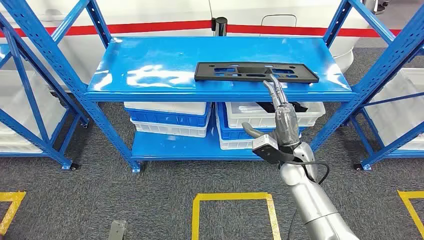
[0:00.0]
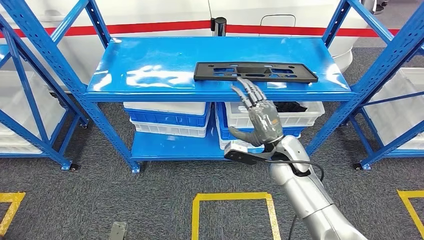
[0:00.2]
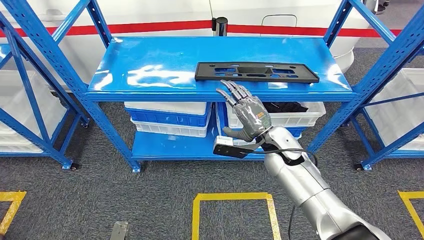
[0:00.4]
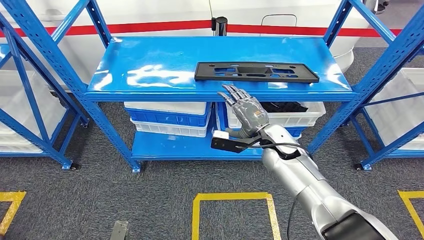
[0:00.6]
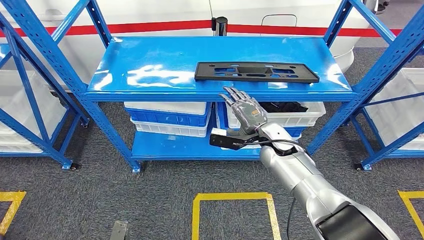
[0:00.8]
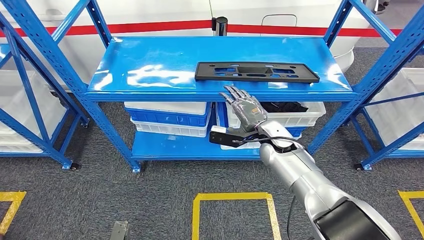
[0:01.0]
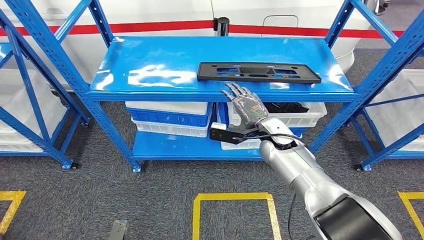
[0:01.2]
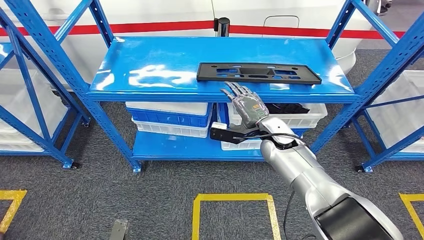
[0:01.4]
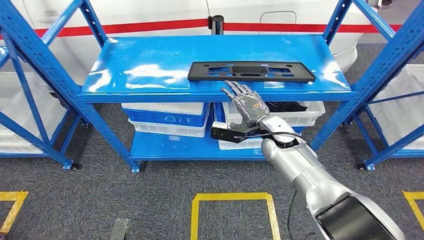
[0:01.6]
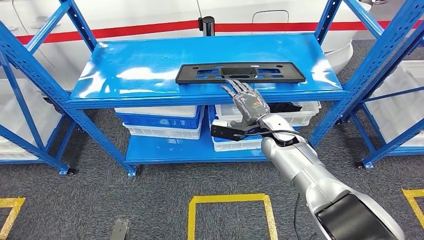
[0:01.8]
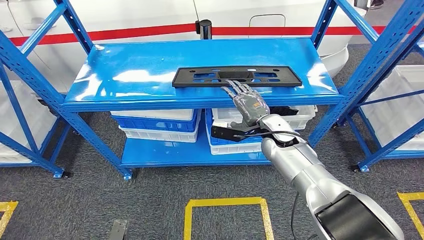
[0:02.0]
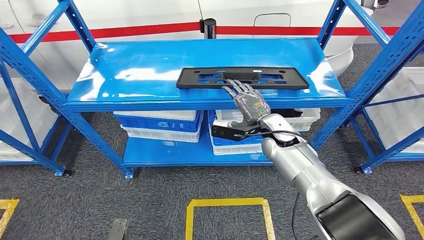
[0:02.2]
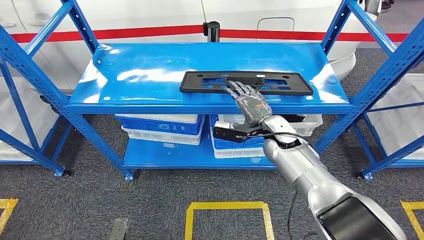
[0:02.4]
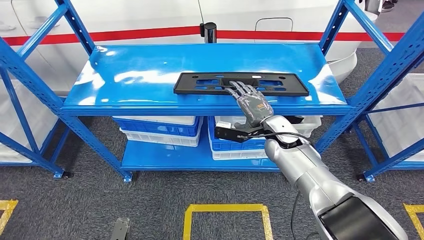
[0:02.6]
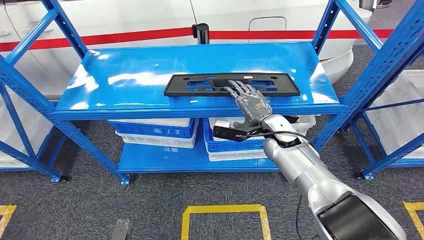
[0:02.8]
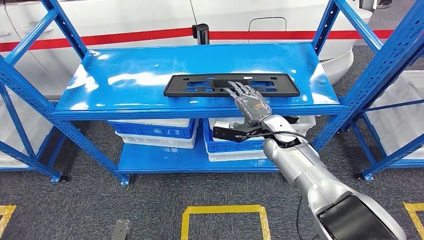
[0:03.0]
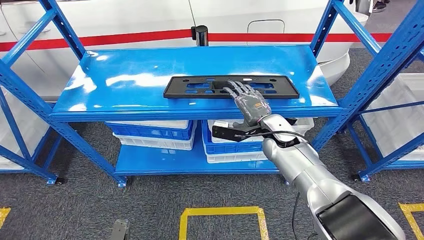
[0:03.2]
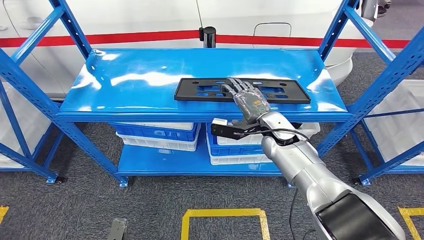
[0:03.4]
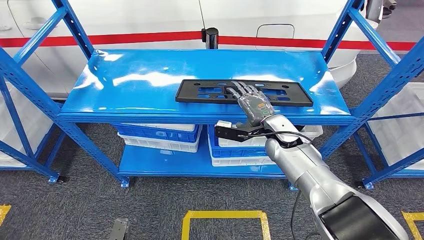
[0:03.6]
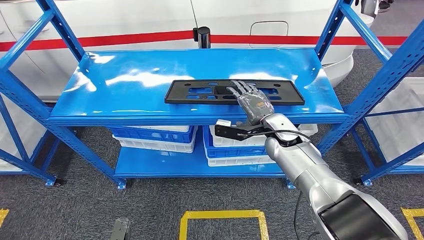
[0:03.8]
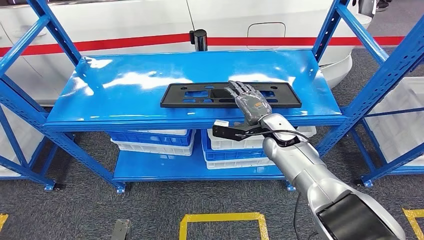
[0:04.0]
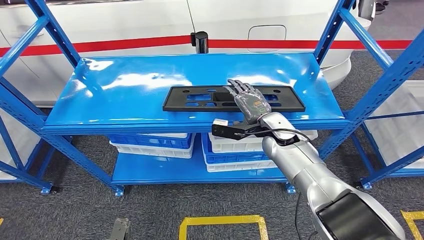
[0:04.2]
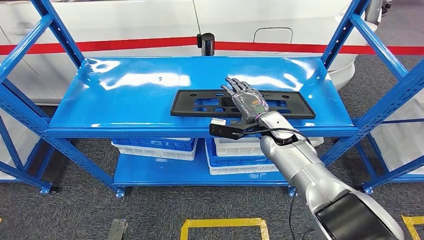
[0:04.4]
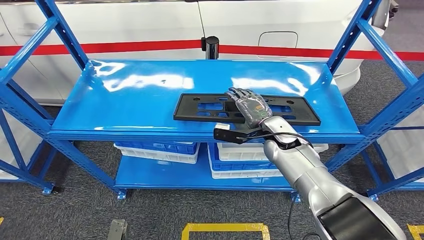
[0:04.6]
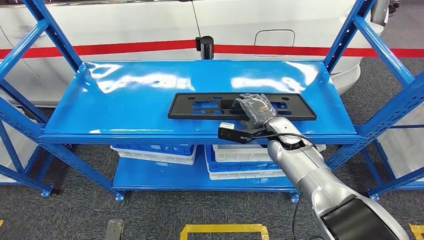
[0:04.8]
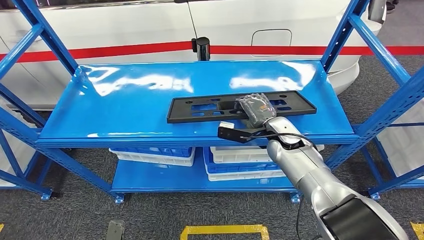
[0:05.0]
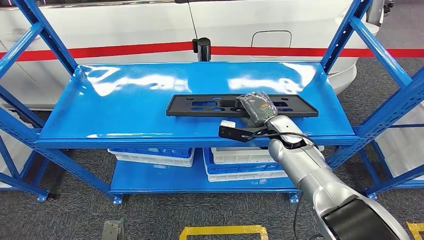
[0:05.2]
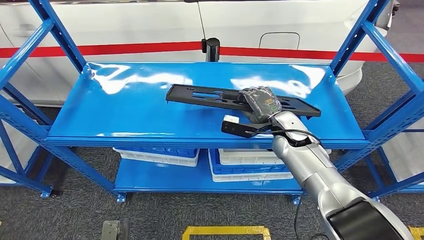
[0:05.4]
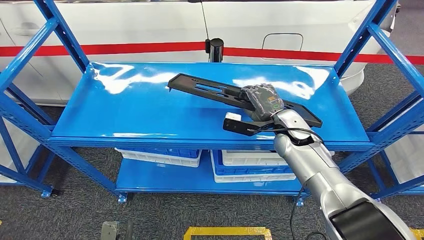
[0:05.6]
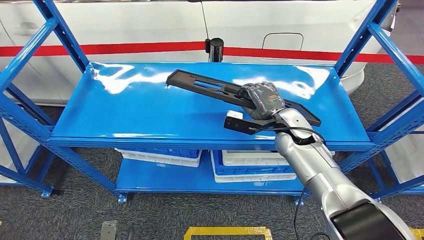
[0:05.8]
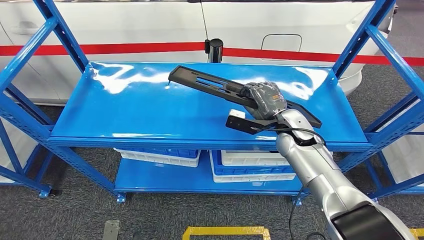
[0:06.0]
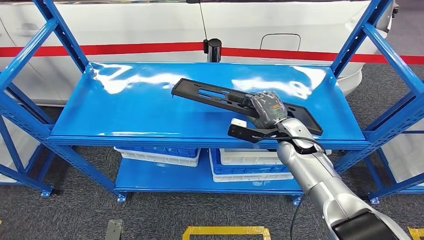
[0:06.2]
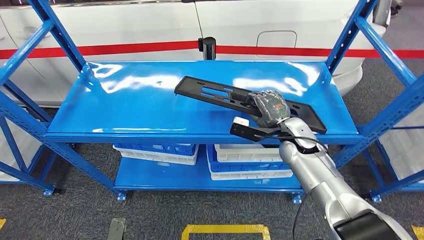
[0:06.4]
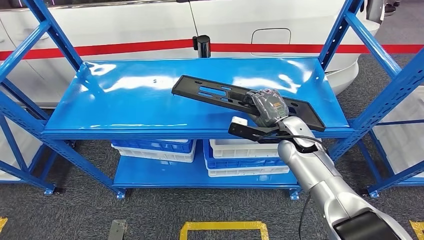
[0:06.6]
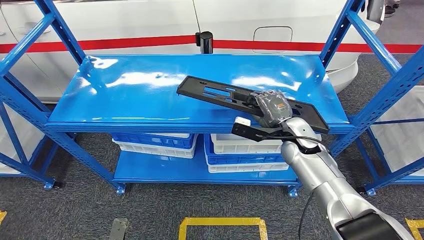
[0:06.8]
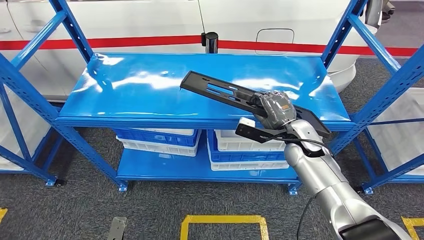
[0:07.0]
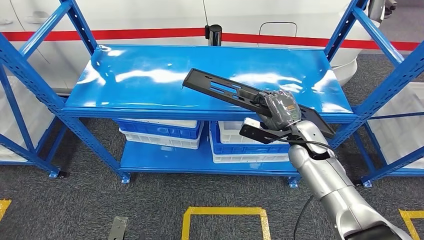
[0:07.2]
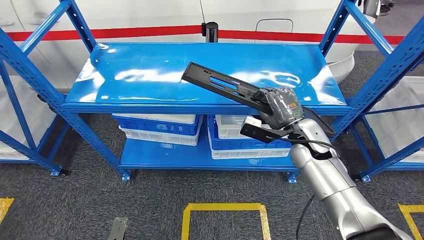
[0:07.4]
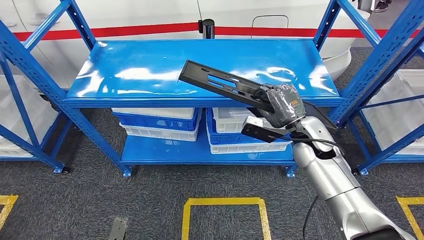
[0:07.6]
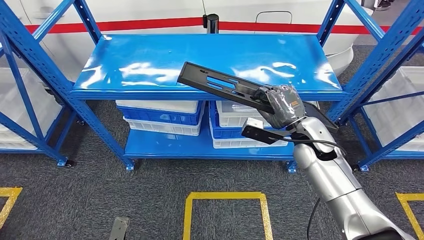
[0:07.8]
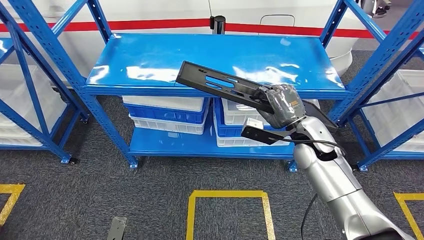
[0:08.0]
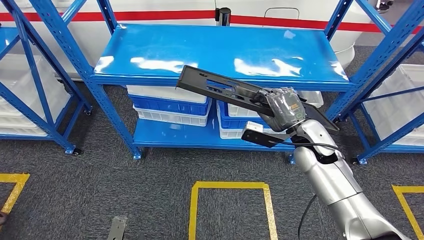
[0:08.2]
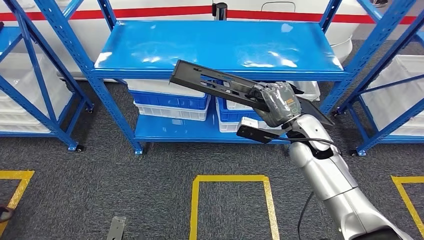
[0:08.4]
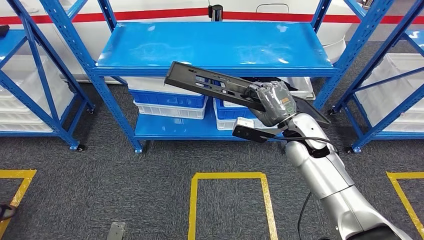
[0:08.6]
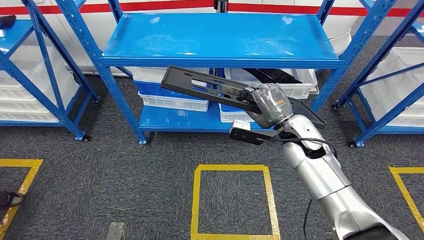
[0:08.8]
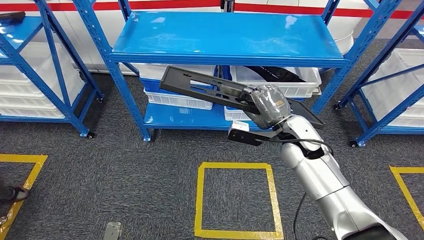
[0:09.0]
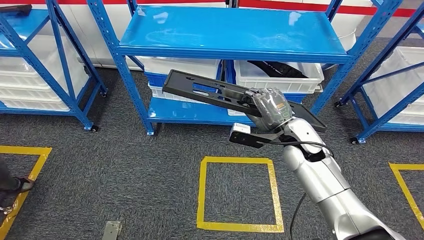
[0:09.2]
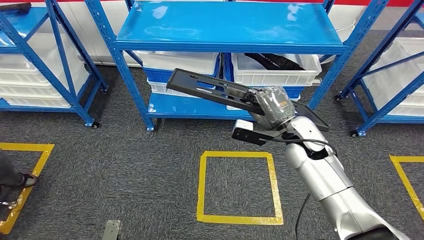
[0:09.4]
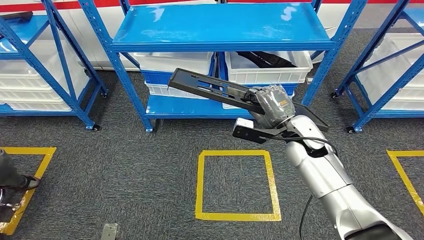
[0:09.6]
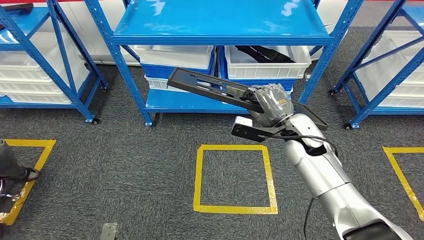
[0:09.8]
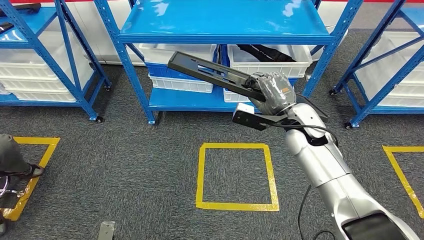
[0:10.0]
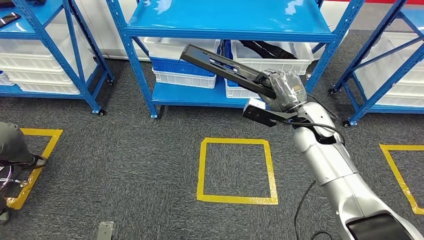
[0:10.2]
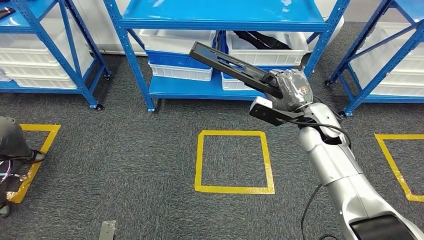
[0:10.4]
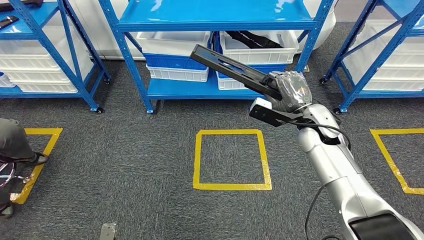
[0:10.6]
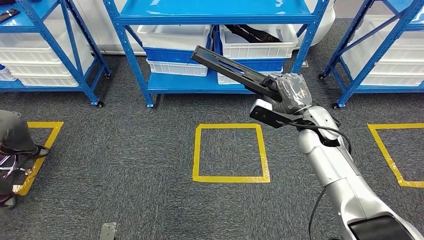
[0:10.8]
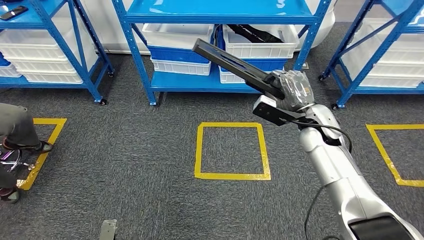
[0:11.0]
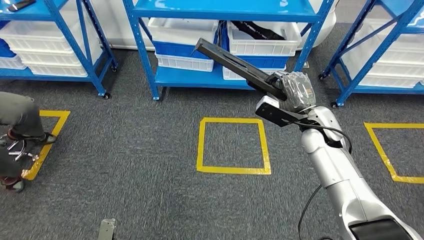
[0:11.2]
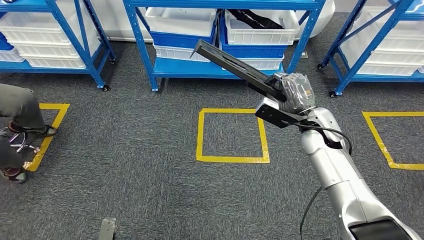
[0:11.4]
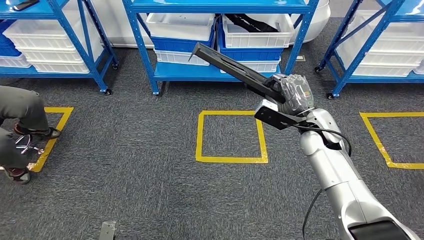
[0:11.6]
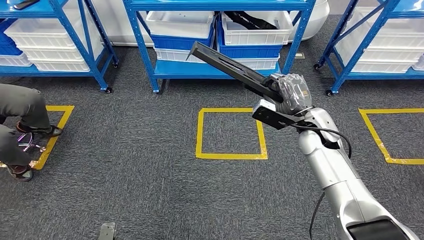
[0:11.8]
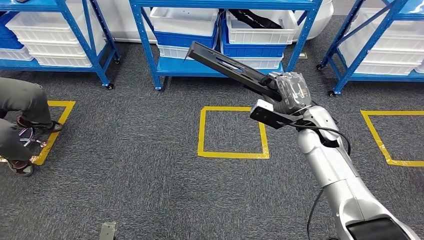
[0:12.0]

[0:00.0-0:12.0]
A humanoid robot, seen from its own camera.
Step, 0:00.0 to 0:09.0: Pick up the large material from the shelf.

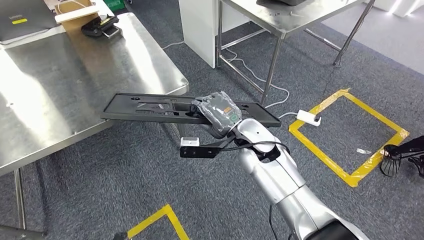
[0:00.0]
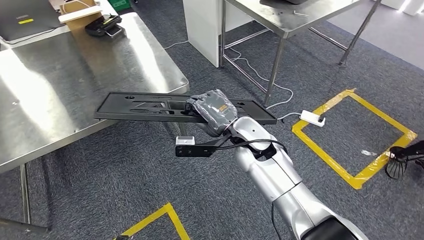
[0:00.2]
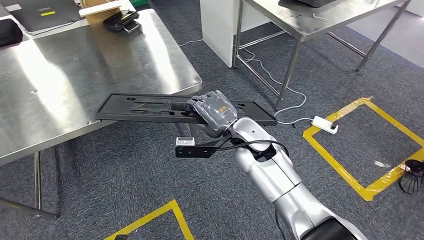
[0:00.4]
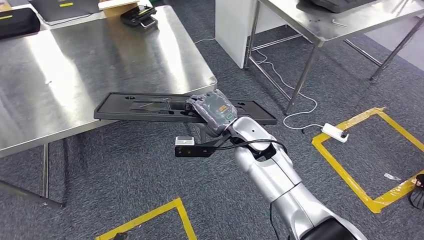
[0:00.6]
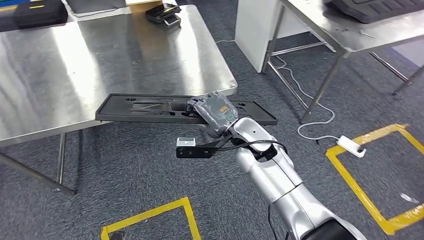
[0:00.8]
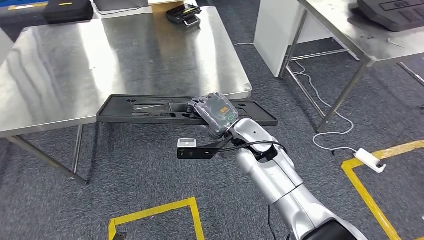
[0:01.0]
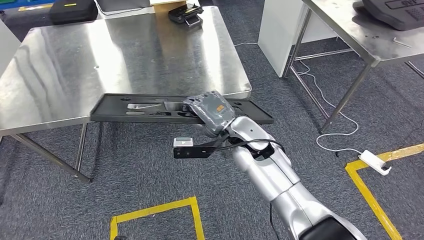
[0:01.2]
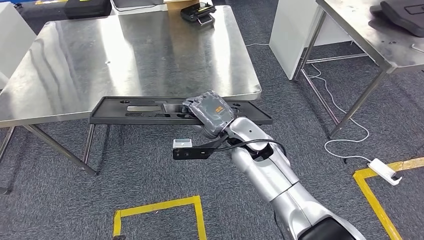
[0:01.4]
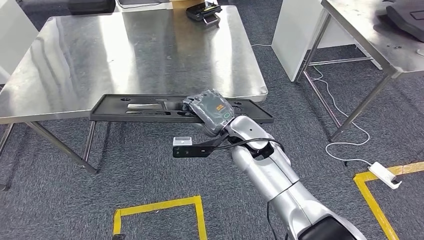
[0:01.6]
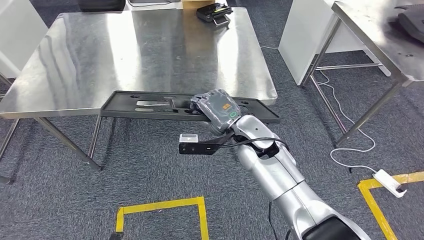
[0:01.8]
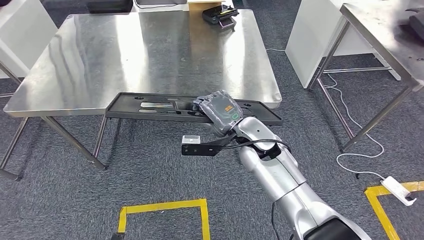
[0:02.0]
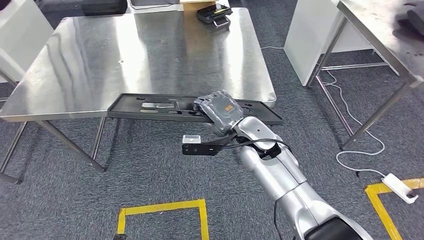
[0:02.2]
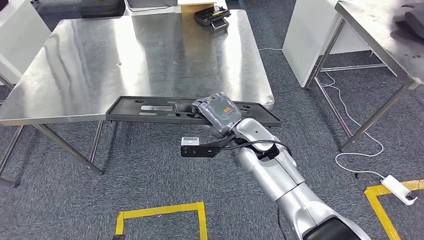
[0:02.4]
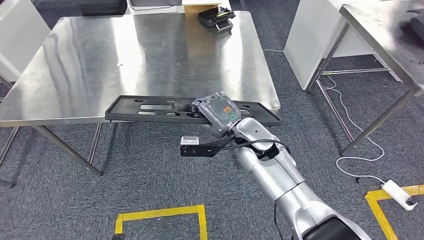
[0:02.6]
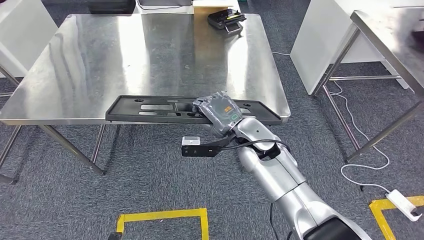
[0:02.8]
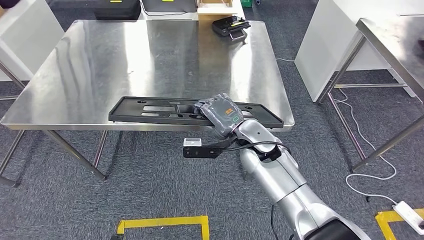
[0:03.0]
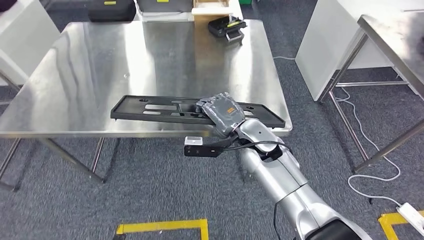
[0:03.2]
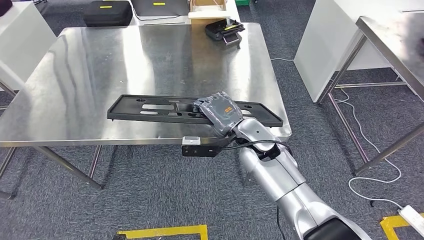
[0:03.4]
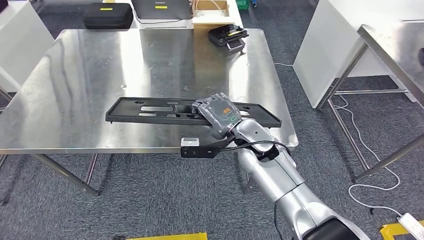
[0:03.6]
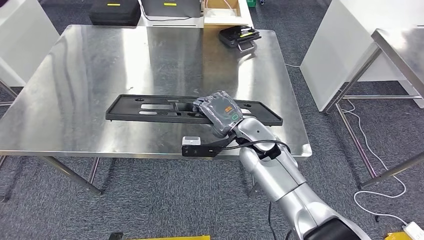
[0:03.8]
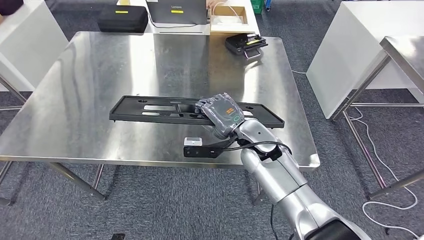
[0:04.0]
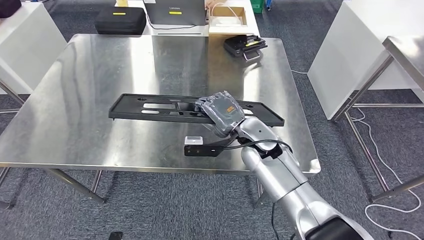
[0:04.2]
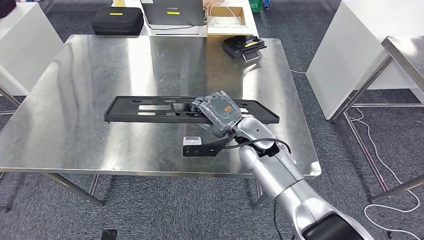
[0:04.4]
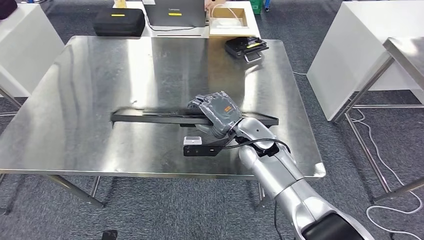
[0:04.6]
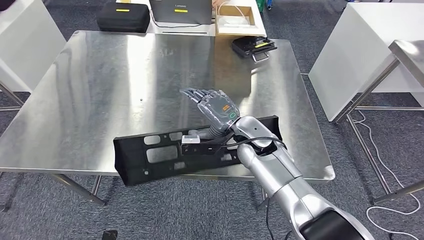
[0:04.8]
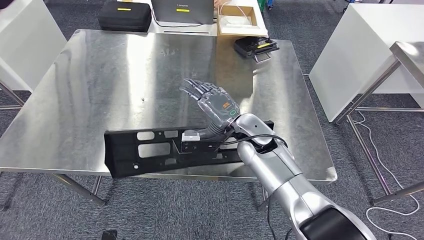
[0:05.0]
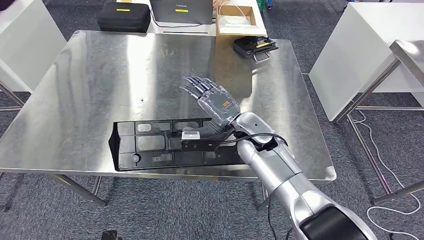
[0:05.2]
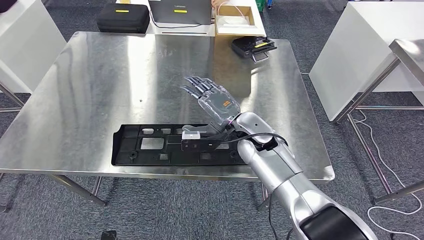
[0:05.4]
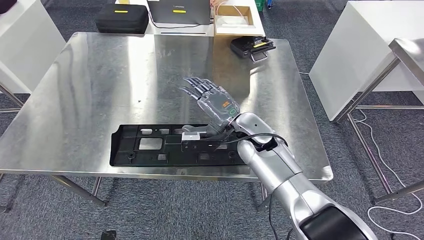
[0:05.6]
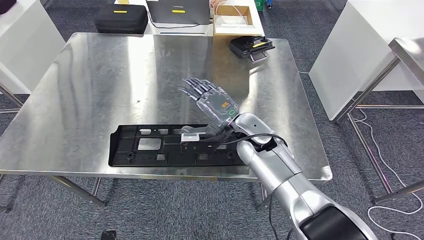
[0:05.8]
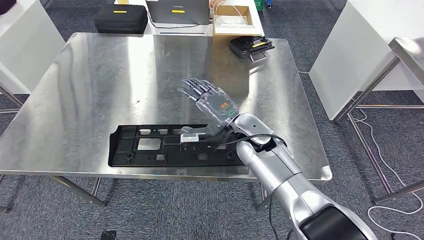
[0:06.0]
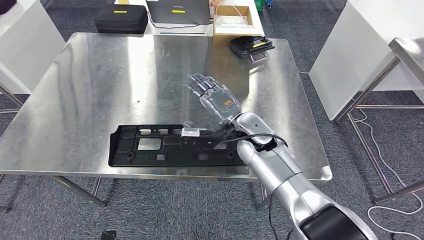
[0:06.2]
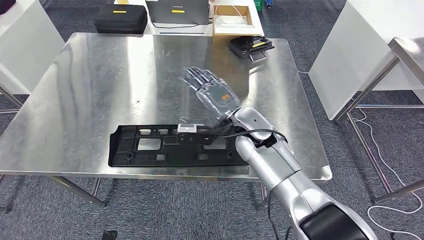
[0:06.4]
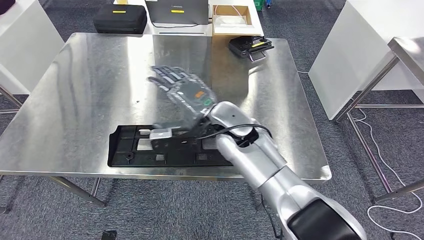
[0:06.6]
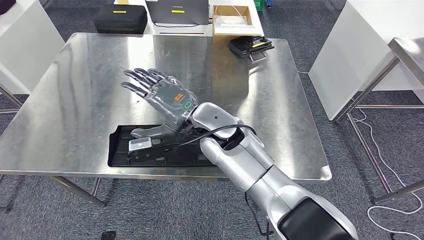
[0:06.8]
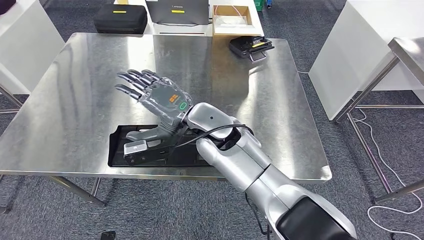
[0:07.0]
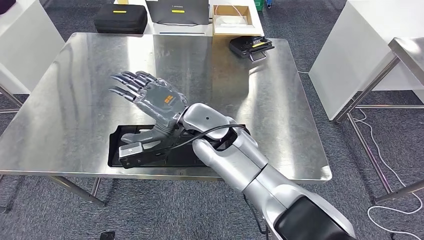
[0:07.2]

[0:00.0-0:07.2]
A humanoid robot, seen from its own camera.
Step, 0:00.0 to 0:03.4: Move the large material to the workbench.
0:05.8 to 0:07.2: The right hand shifts approximately 15 cm to the left and upward.
